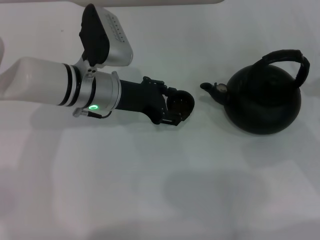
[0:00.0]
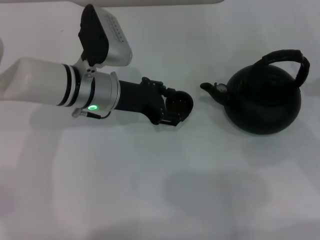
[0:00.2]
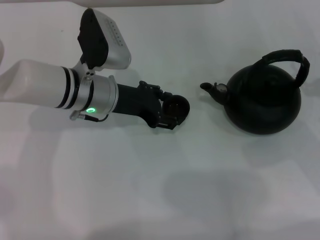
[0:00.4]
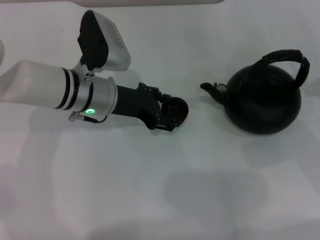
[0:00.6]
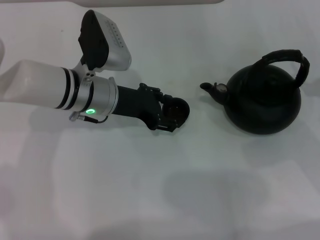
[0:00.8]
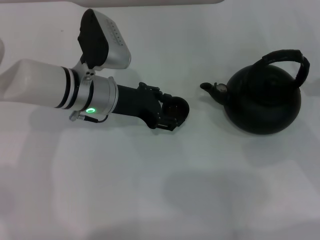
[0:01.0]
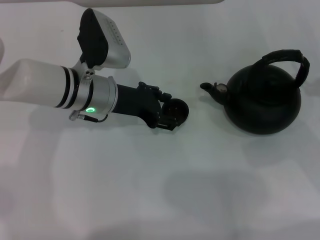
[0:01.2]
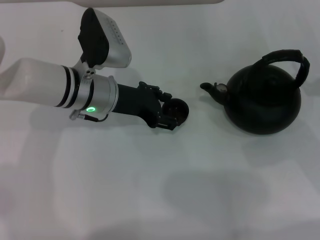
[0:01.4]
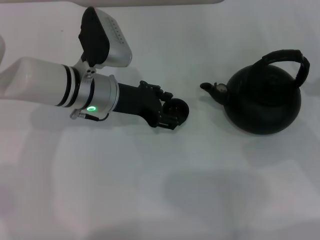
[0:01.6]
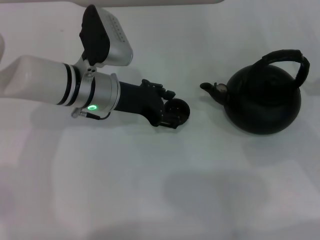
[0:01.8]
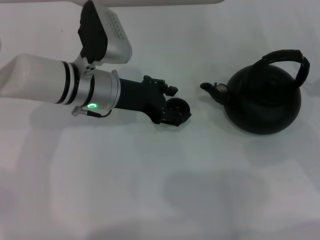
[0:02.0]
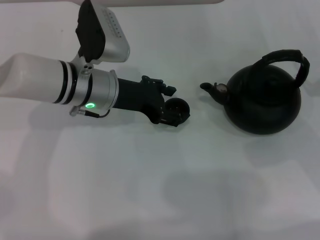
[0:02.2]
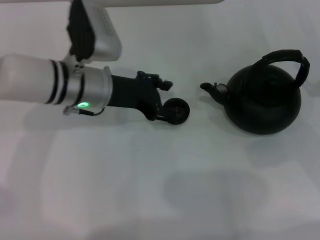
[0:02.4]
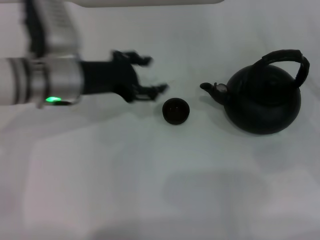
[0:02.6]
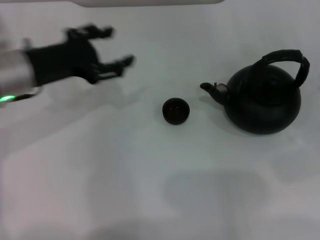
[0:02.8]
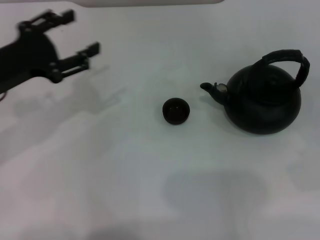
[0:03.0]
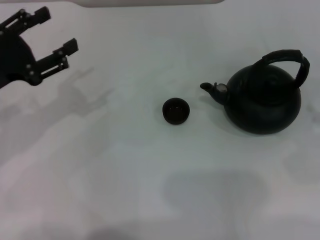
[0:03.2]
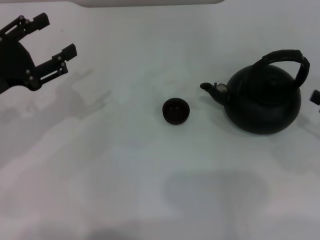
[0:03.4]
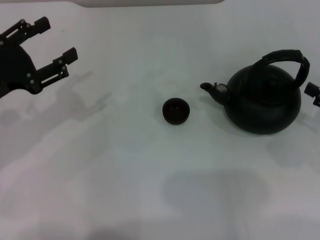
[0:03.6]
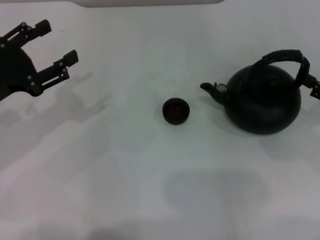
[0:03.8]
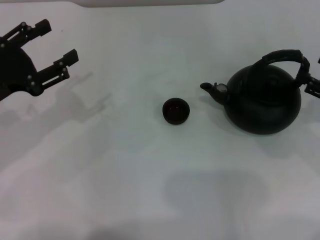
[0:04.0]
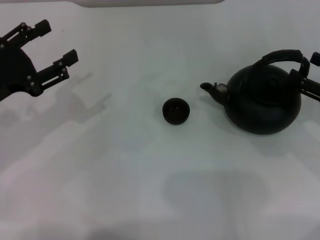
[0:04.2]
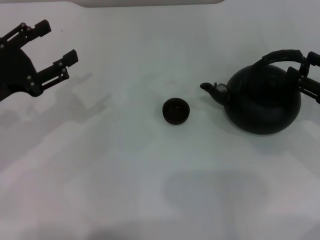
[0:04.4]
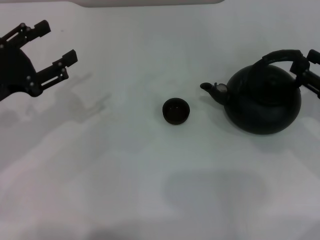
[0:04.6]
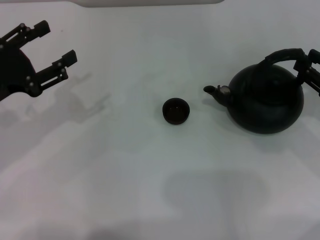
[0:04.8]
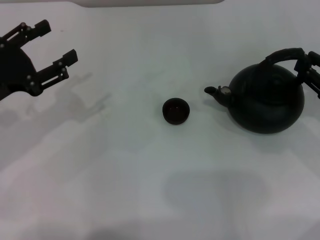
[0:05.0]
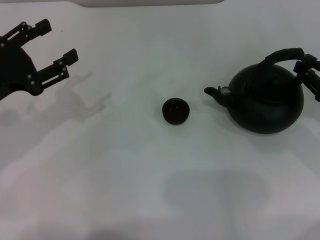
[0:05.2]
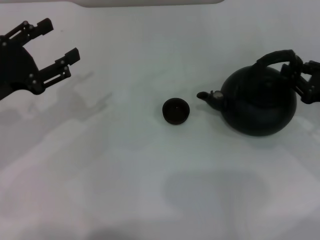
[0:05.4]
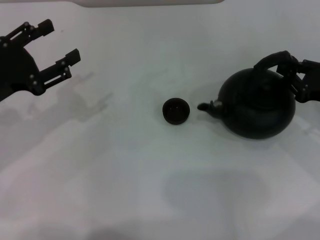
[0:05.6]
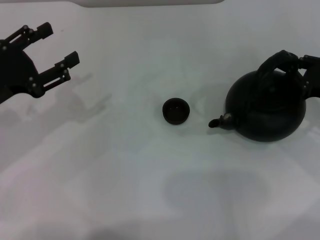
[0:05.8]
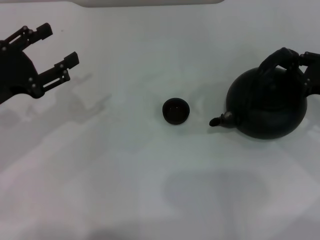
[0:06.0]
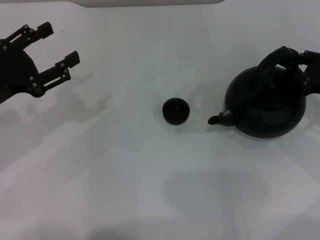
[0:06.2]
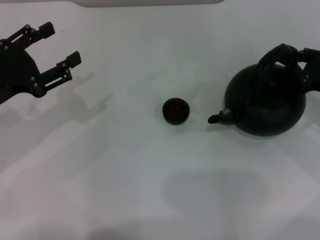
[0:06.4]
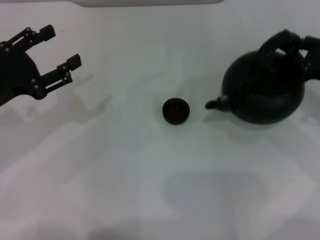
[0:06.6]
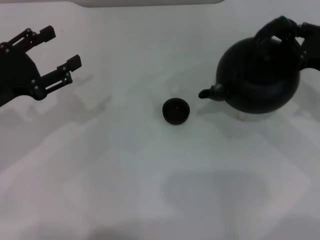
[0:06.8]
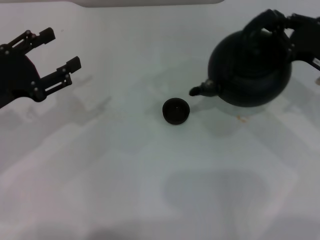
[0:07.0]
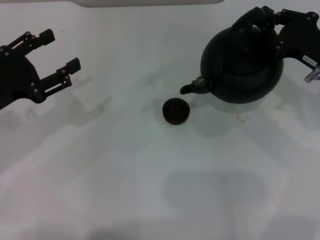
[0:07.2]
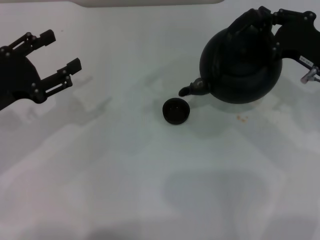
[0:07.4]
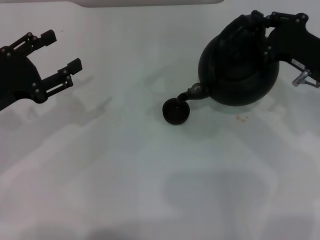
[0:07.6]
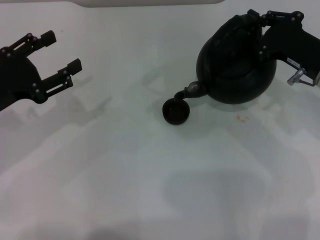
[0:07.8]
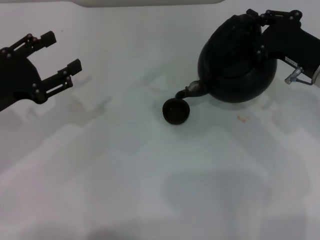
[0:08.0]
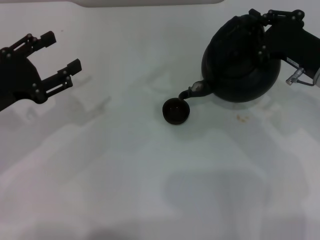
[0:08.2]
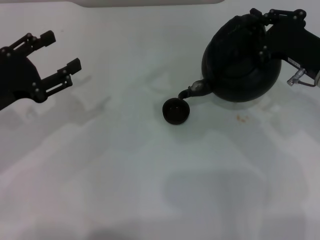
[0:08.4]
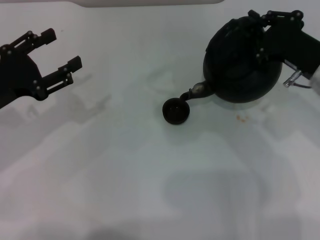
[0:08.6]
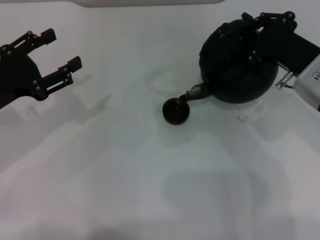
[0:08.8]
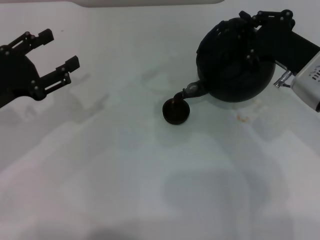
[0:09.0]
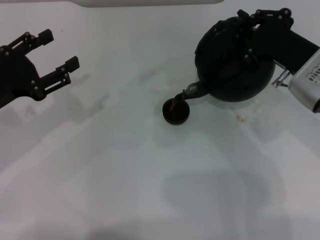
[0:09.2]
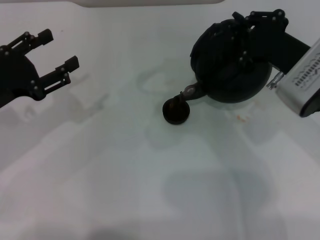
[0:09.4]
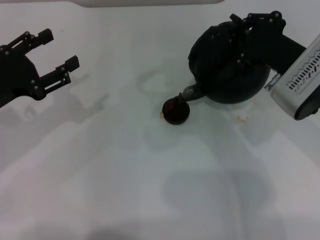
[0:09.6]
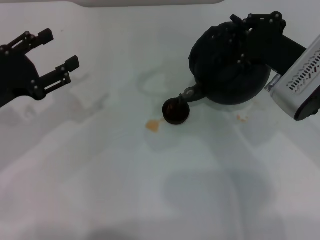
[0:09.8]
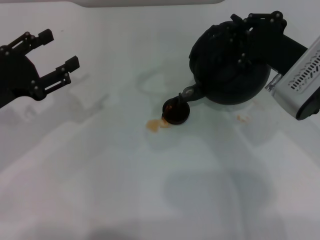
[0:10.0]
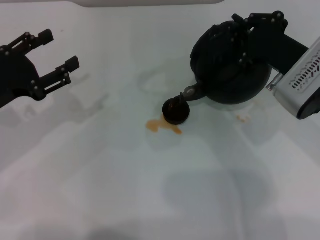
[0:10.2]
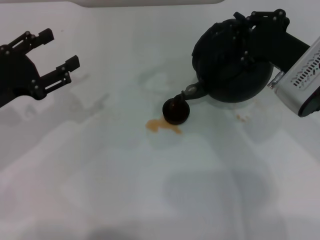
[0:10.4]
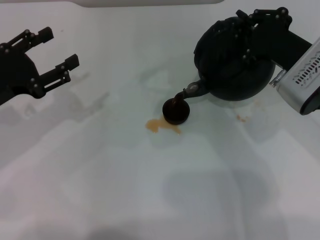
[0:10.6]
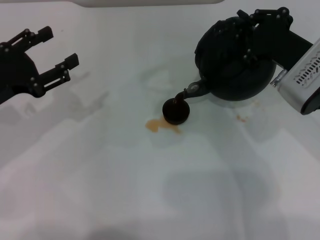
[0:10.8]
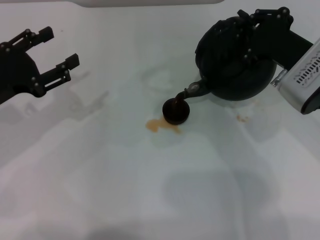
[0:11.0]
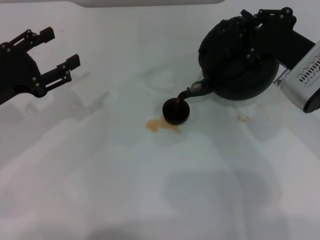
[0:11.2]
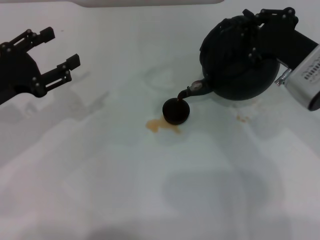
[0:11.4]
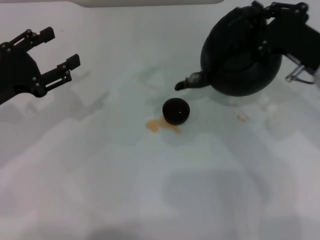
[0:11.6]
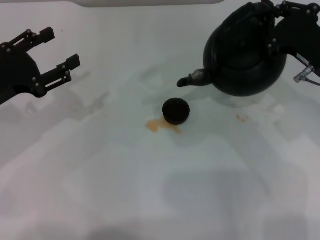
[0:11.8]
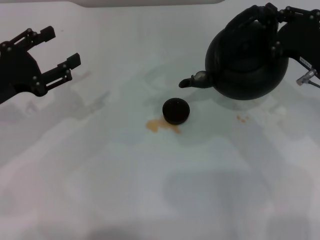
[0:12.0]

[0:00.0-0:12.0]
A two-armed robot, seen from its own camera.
Task of the whole recording: Grasp the handle of the teapot with one hand and pour tea into the teacup.
Step, 0:00.0 to 0:02.8: Place the teacup in the center of view with the left gripper.
Step, 0:03.0 to 0:06.8: Pick up the teapot with the right gripper.
Step, 0:07.0 to 0:12.0: Pour tea into the teacup with the right gripper.
0:00.0 to 0:01.6: Neither gripper changes place.
0:01.6 to 0:03.0: The left gripper heads to the left and backward, covering approximately 15 cm; the right gripper goes some 10 cm to the right and backward.
0:03.0 to 0:04.4: The right gripper heads forward and to the left, covering roughly 10 cm.
0:04.4 to 0:06.0: The right gripper closes its fingers.
0:06.0 to 0:07.6: The right gripper shifts some 5 cm to the left.
0:07.6 to 0:09.0: The grippers move only a little.
0:09.0 to 0:10.4: The grippers move only a little.

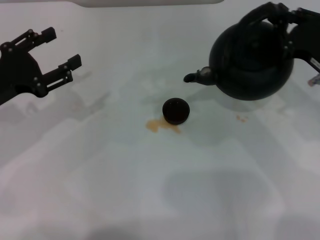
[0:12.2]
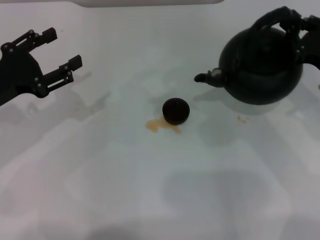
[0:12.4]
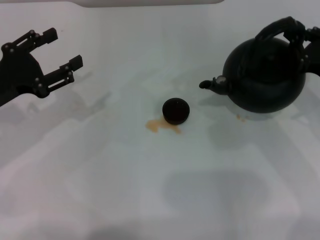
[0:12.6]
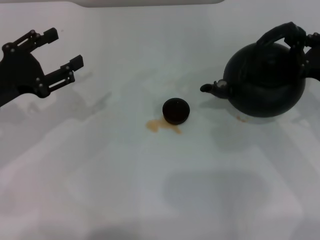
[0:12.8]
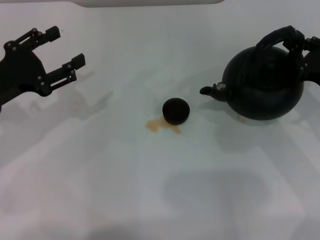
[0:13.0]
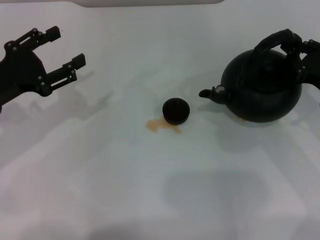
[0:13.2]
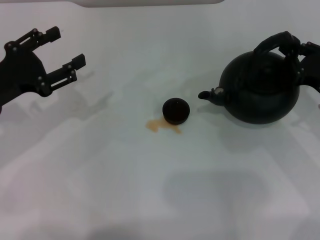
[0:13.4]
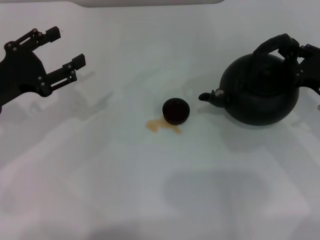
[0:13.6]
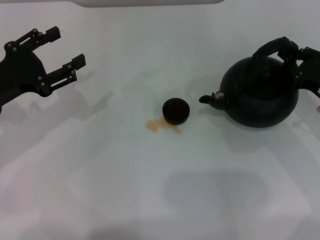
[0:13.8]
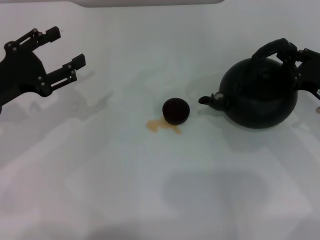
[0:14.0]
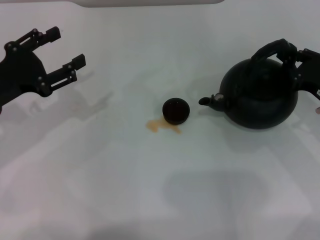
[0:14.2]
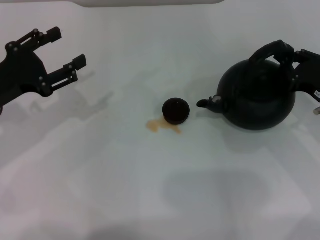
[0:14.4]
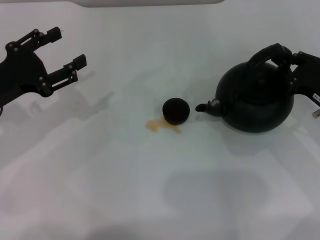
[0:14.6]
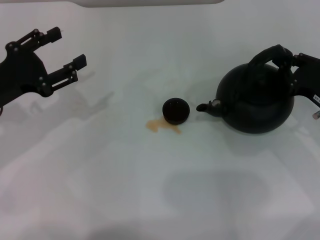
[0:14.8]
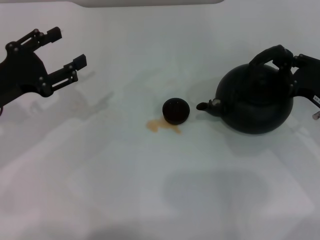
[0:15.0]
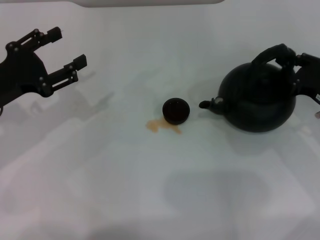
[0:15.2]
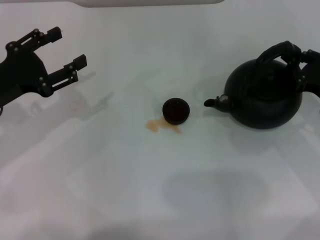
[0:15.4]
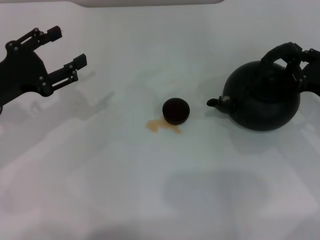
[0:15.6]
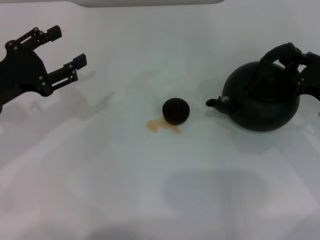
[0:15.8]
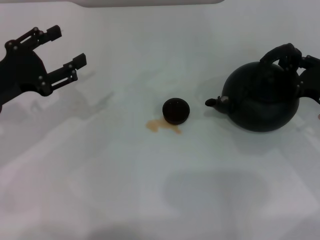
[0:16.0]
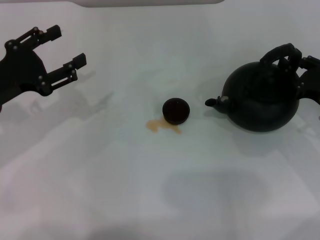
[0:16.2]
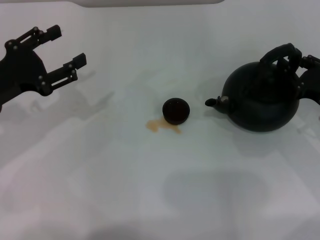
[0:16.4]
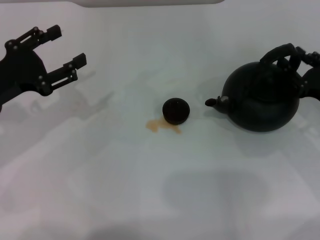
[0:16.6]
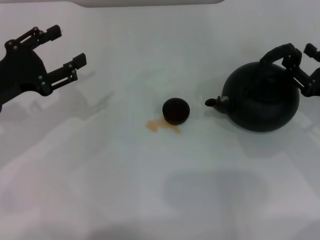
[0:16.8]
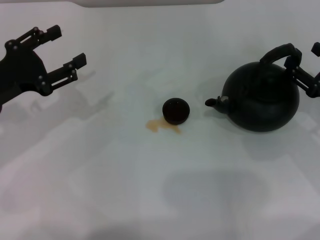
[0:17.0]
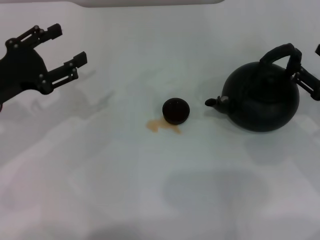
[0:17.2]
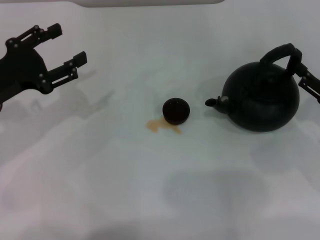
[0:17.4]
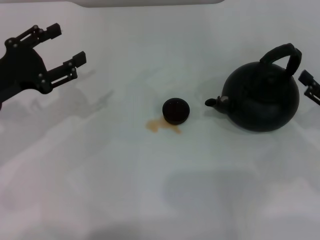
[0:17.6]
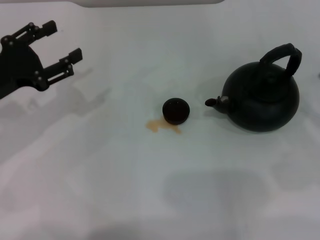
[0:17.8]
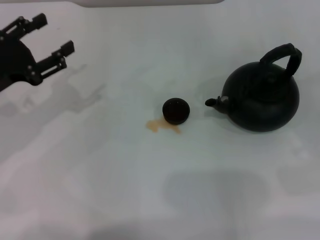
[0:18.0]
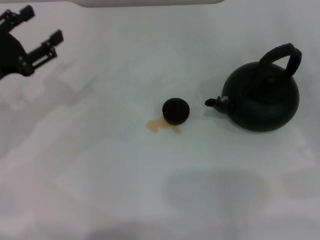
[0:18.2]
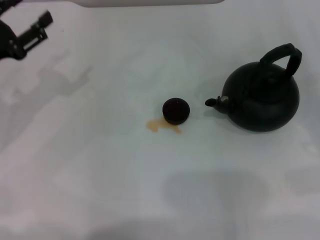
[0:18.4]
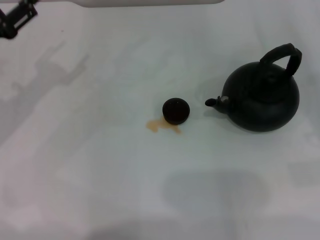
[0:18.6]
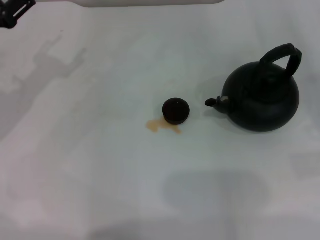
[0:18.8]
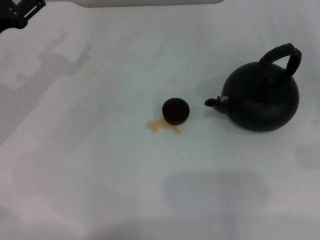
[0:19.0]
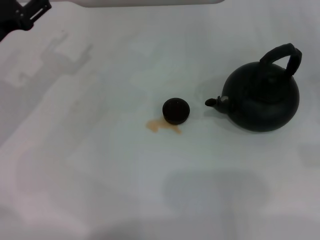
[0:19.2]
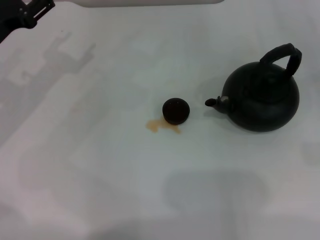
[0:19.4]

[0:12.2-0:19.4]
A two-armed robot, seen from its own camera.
Task of the whole recording: Grasp the handle of the teapot with one hand and pour tea into the teacup.
Step, 0:12.2 to 0:17.0: Put down the teapot with the right gripper.
0:12.2 to 0:13.6: The right gripper ends up some 5 cm from where it was.
0:13.6 to 0:15.0: The grippers make only small movements.
0:15.0 to 0:16.6: The two grippers keep their place.
0:16.6 to 0:18.0: The right gripper goes some 10 cm backward and to the right, and opens.
0:18.0 to 0:19.4: The left gripper is displaced forward by approximately 5 cm.

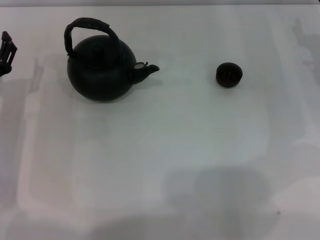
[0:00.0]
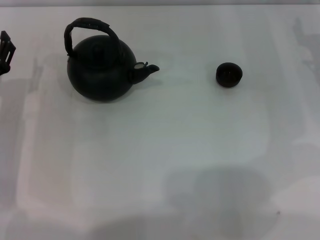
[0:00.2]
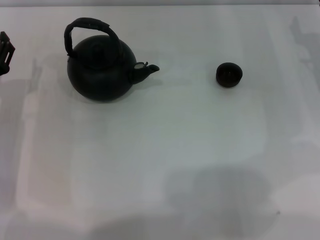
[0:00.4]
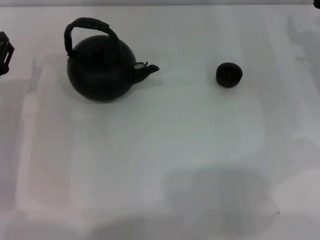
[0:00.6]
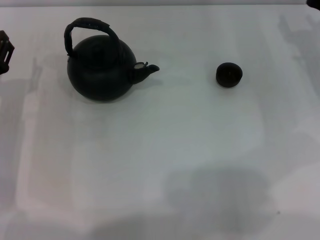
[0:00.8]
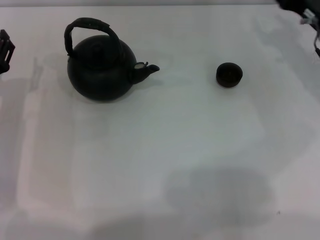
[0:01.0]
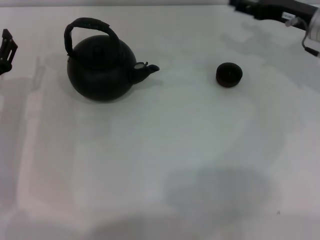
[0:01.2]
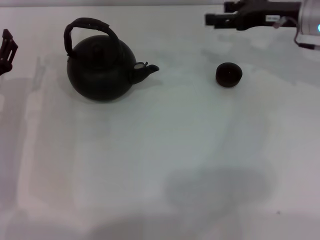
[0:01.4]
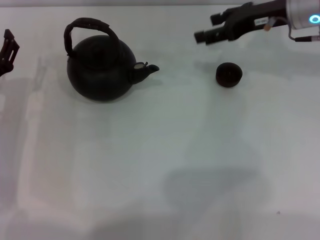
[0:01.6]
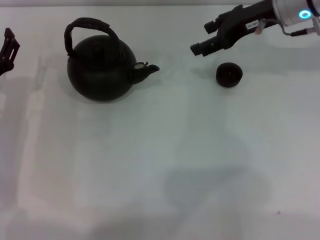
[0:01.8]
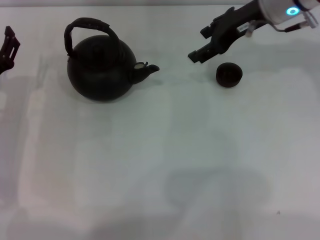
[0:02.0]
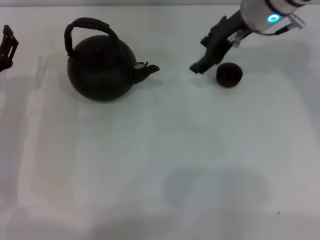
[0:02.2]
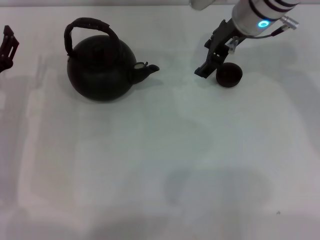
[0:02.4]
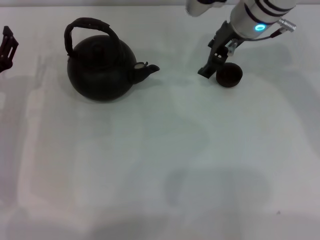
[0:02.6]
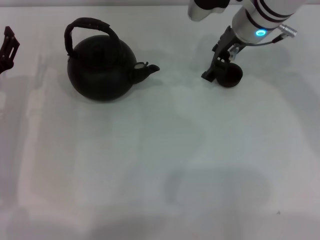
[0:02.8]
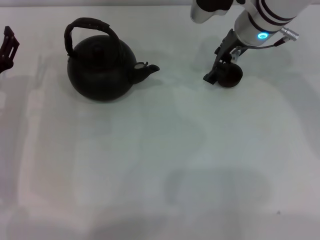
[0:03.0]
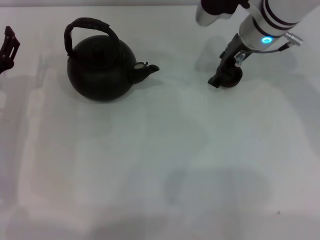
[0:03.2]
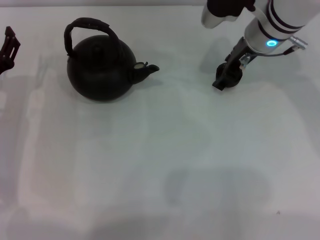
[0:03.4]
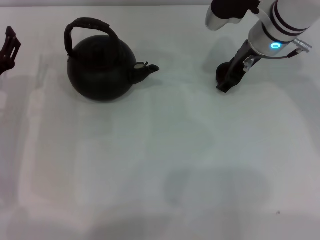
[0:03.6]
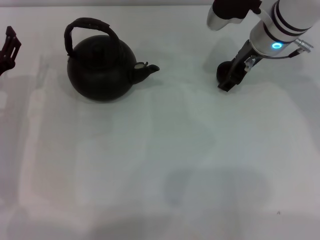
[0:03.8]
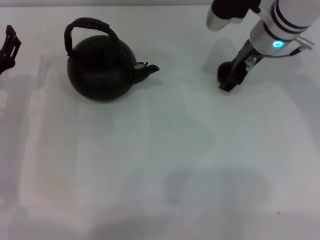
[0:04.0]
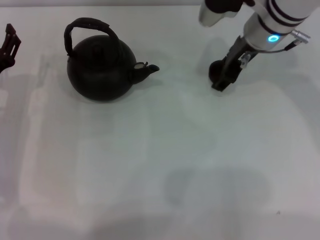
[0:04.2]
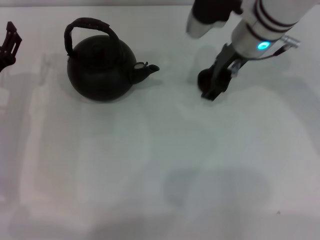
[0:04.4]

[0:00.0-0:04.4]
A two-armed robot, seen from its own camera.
Task of the whole recording: Grasp the handle of the teapot with one hand and pour tea into the teacup.
Step, 0:00.0 to 0:04.2: Pick up the teacup with the right gripper.
0:00.0 to 0:01.4: The right gripper goes approximately 10 cm upward and to the left.
0:01.4 to 0:03.0: The right gripper moves to the left, about 10 cm.
0:03.0 to 0:04.4: The grippers move only a little.
